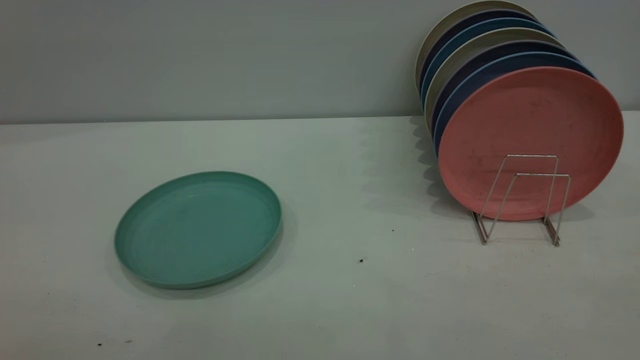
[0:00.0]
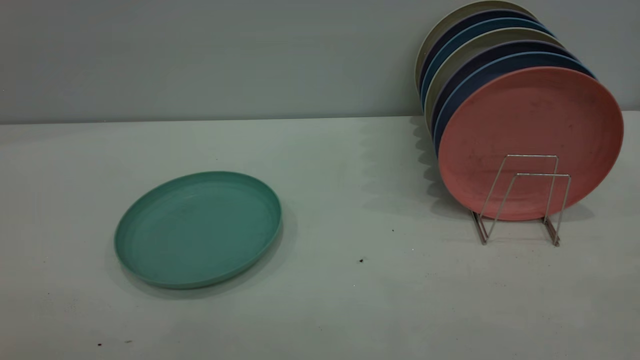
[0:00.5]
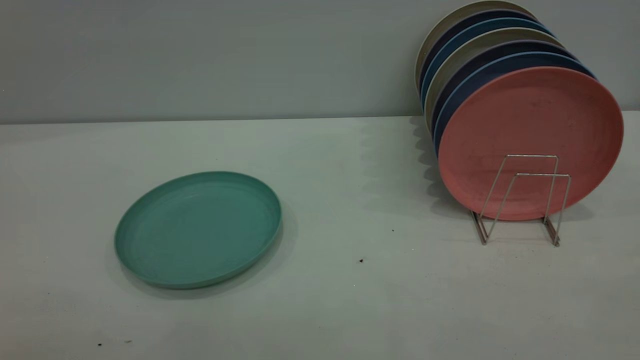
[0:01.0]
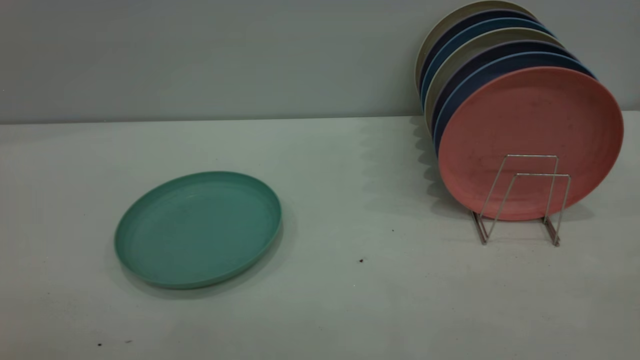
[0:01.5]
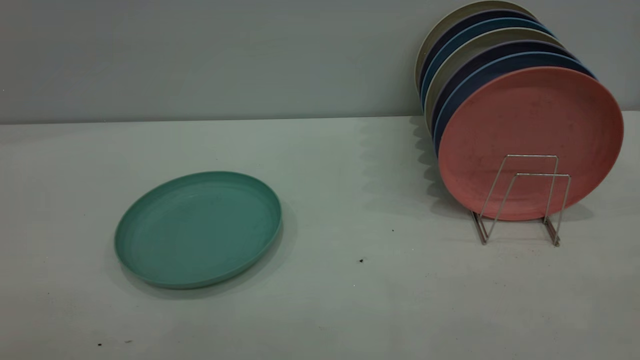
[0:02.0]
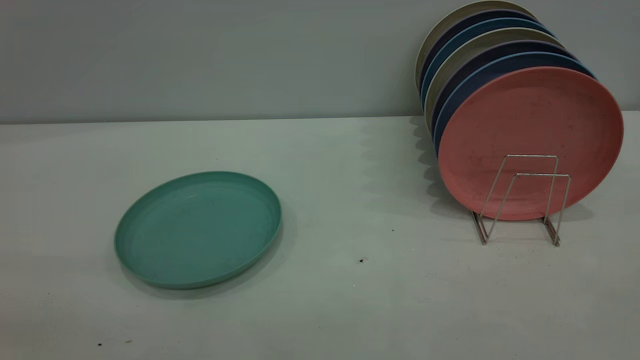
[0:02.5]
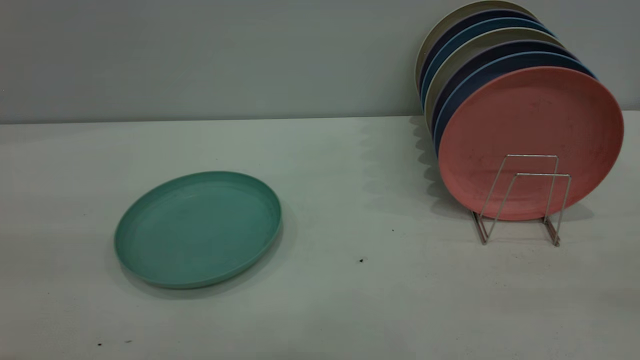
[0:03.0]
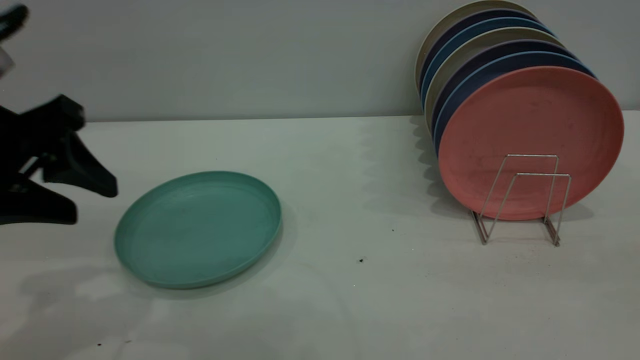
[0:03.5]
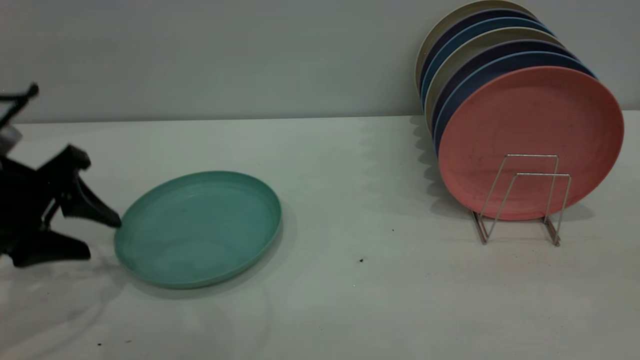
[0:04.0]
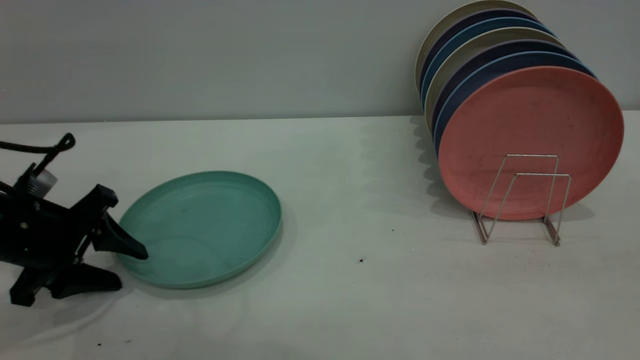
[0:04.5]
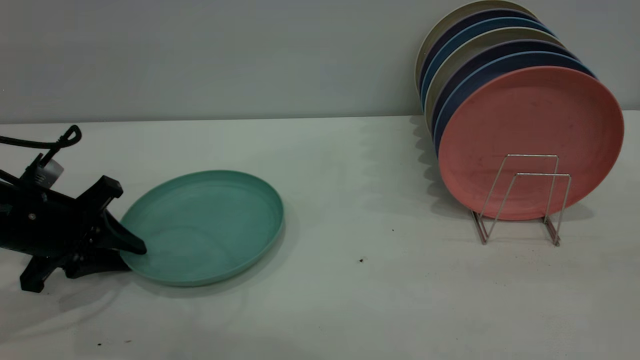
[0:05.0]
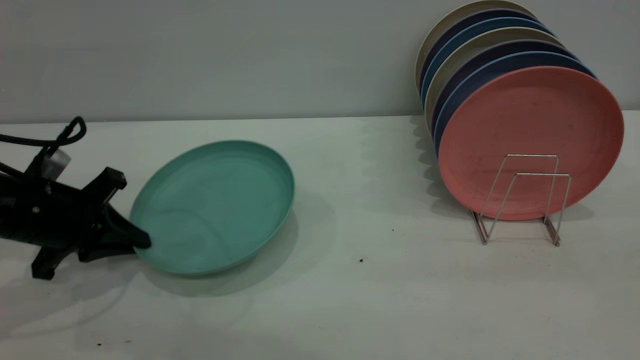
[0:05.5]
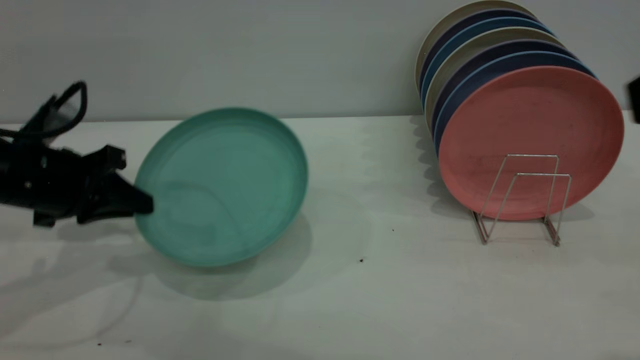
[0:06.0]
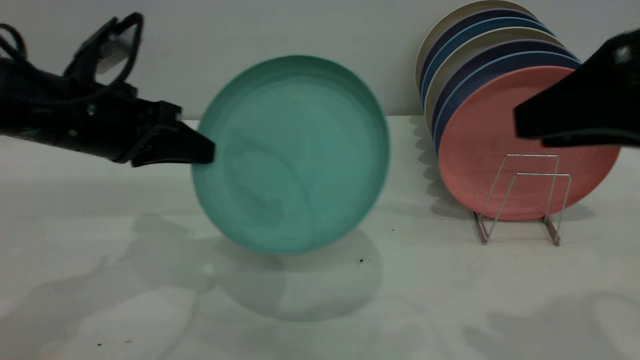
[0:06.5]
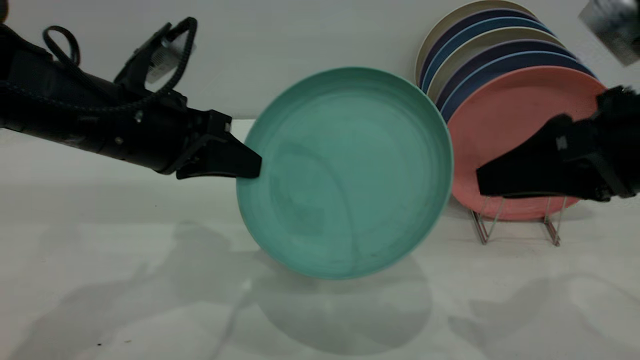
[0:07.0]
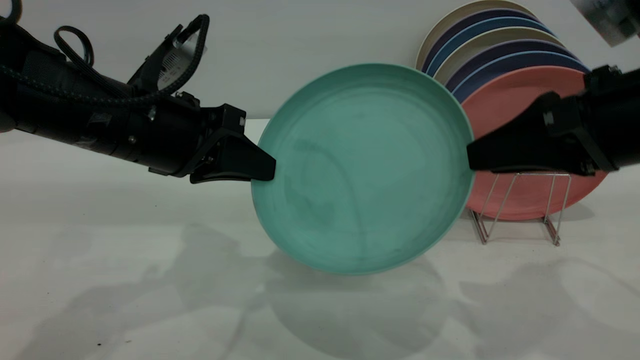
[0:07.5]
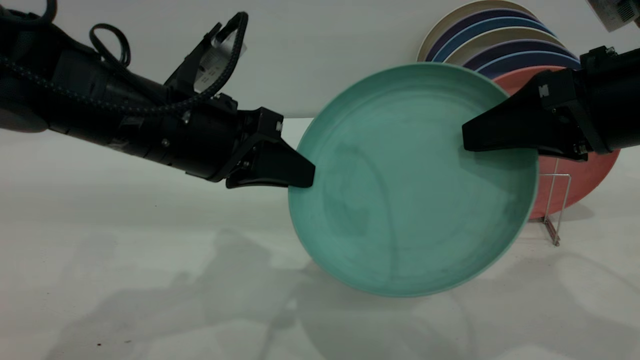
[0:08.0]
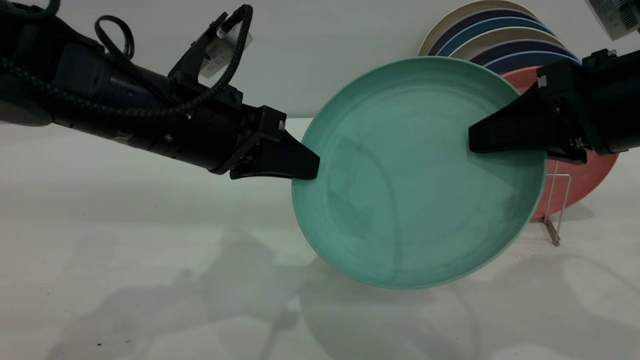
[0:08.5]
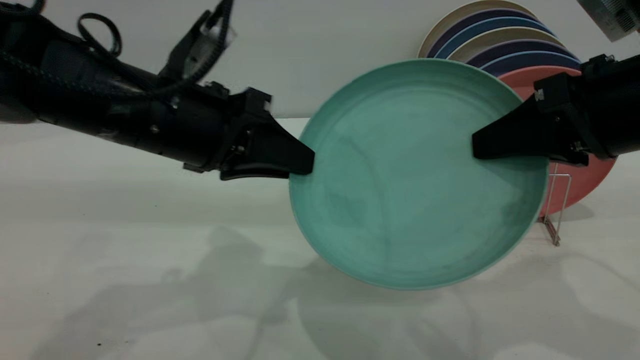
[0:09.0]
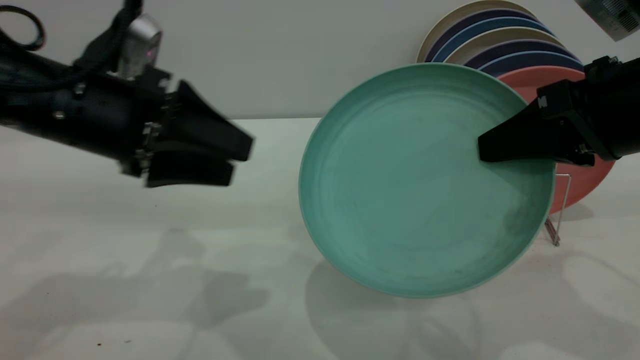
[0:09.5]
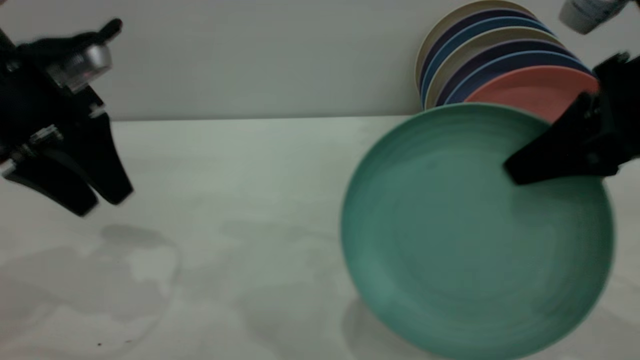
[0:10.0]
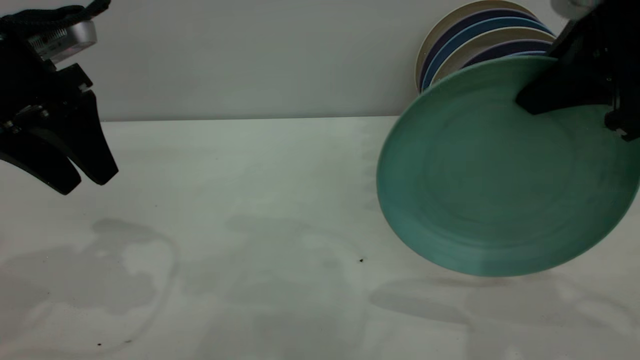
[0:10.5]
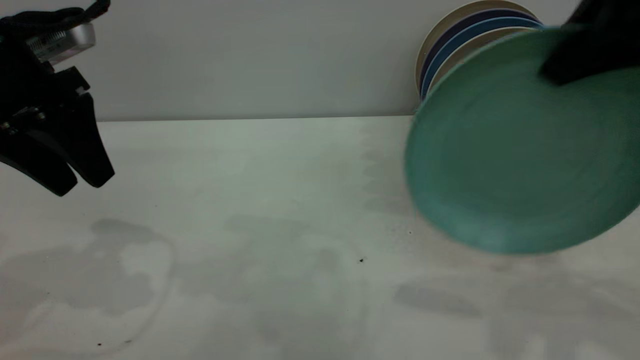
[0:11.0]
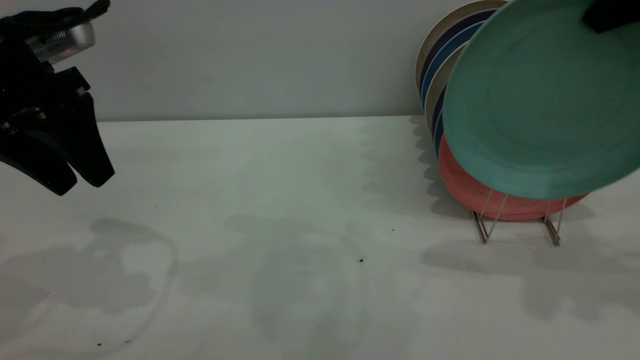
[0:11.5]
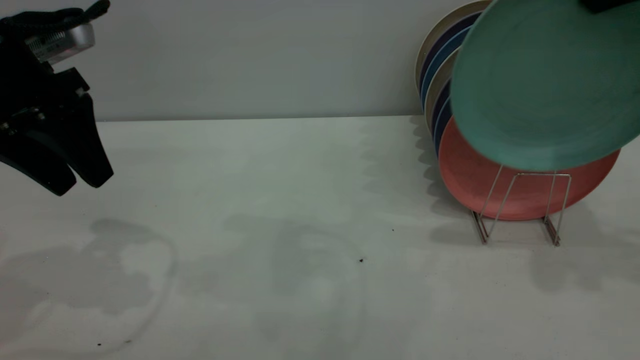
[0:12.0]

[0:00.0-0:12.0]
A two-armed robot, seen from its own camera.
Task of the whole recording: the left gripper grasp the green plate, the left gripper pass the green plate to the right gripper, and the right gripper place the green plate on the plate rack.
Step, 0:00.0 to 0:06.0: Pick up the plate with the left gripper.
Step, 0:06.5 to 0:09.5: Pass the plate from the left gripper to the right gripper.
0:00.0 to 0:02.0: Both grippers stay about where they are.
0:02.0 to 0:04.0: The left gripper shifts about 35 cm forward and downward.
0:04.0 to 0:06.0: The left gripper closes. The right gripper shifts by about 5 cm.
0:06.0 to 0:08.0: The left gripper heads to the right, covering about 15 cm; the right gripper heads forward and downward, covering some 15 cm.
0:08.0 to 0:10.0: The right gripper closes up; the left gripper moves to the left, some 15 cm, and opens.
0:10.0 to 0:12.0: The right gripper goes some 15 cm upward, forward and to the right.

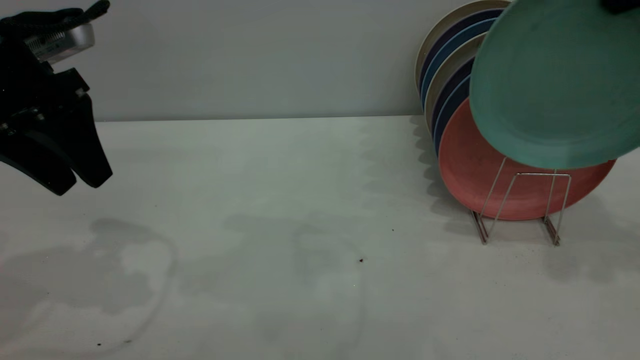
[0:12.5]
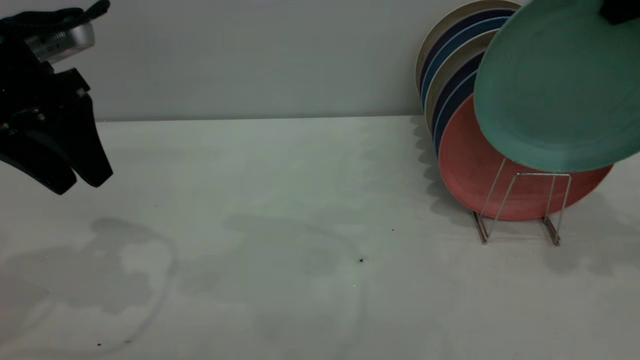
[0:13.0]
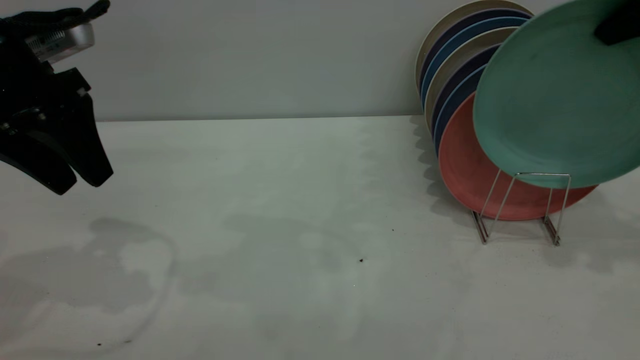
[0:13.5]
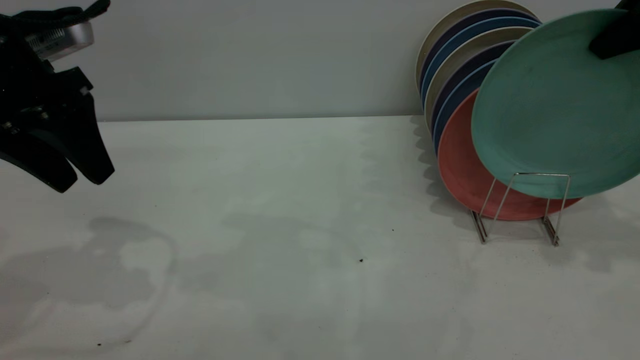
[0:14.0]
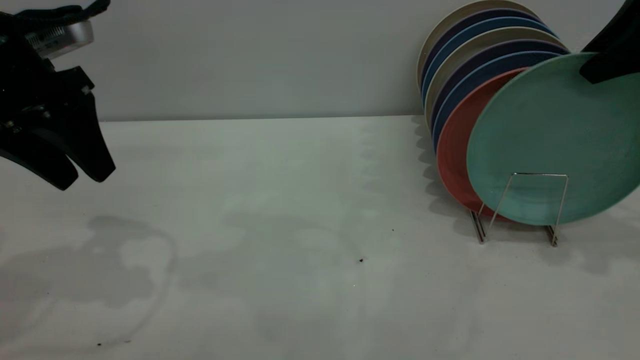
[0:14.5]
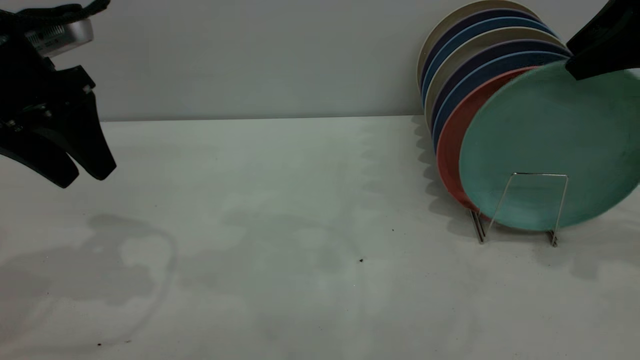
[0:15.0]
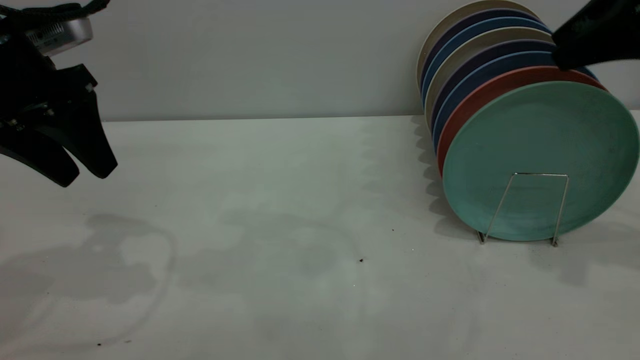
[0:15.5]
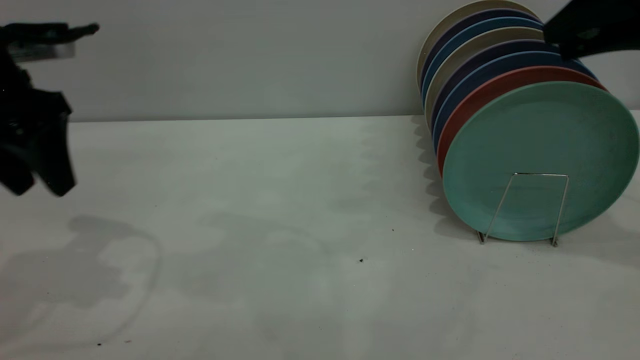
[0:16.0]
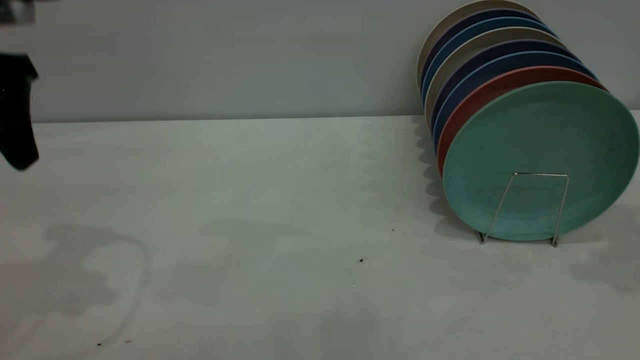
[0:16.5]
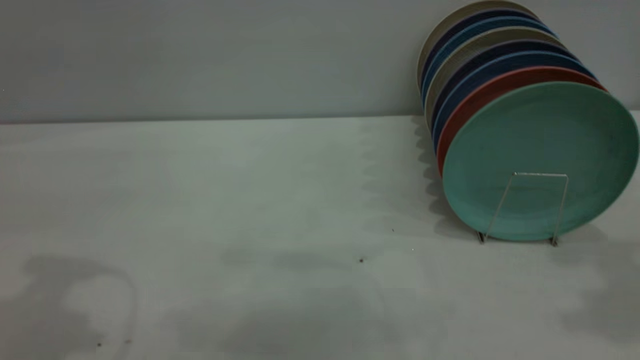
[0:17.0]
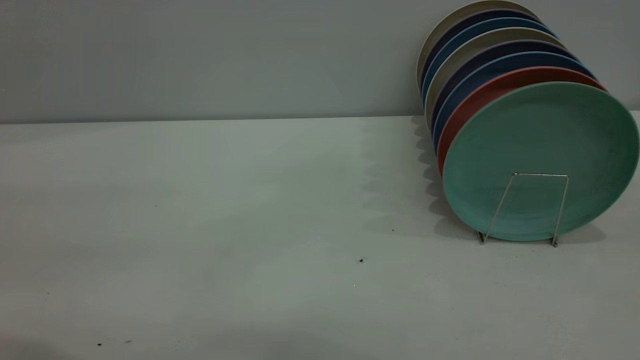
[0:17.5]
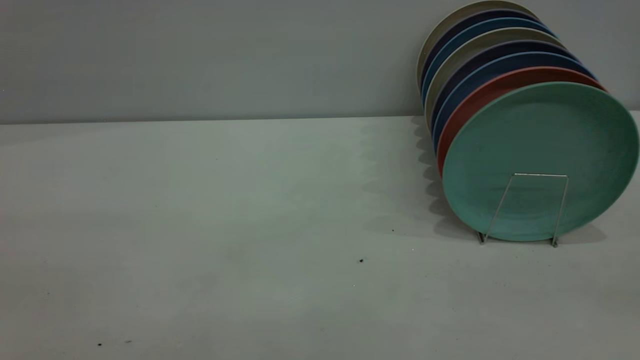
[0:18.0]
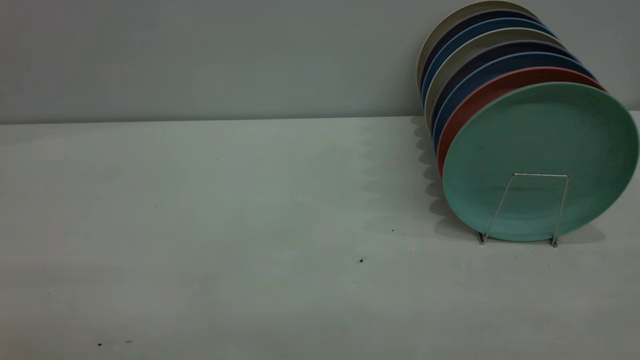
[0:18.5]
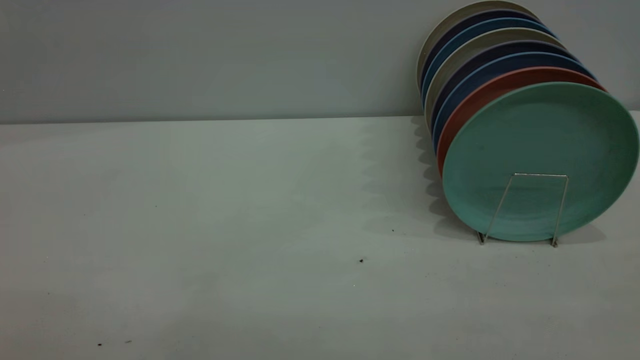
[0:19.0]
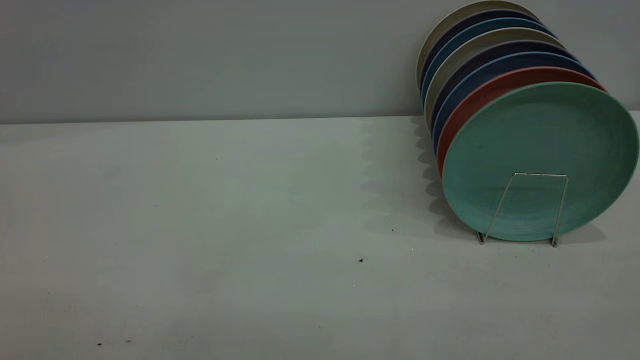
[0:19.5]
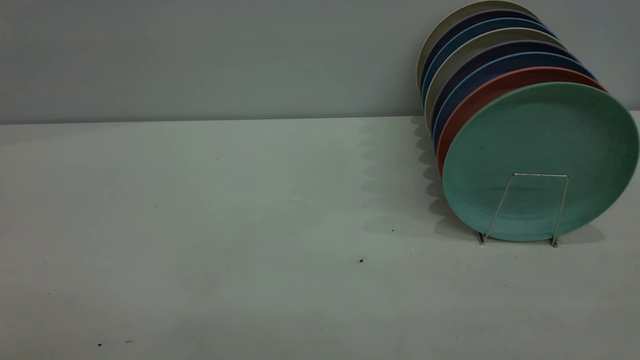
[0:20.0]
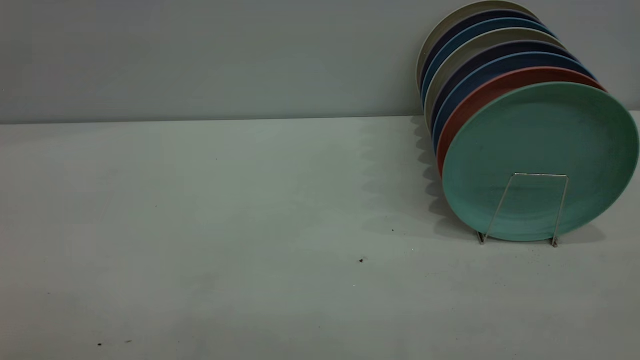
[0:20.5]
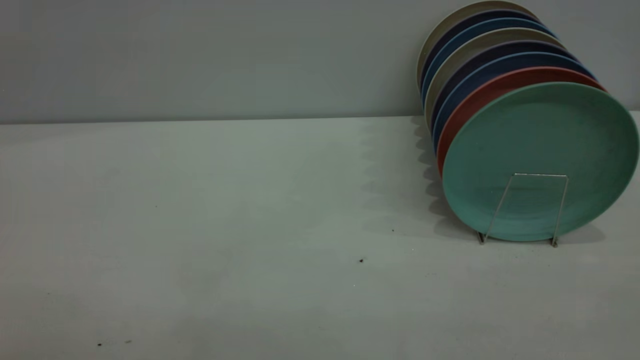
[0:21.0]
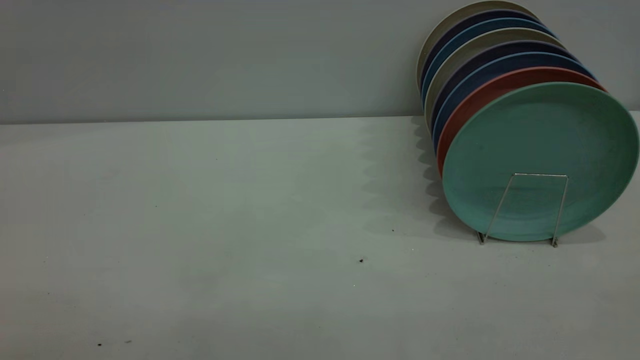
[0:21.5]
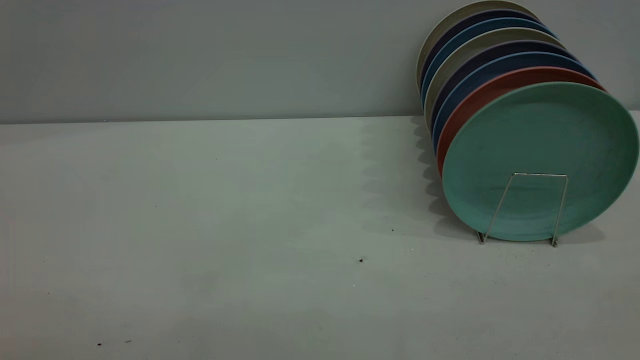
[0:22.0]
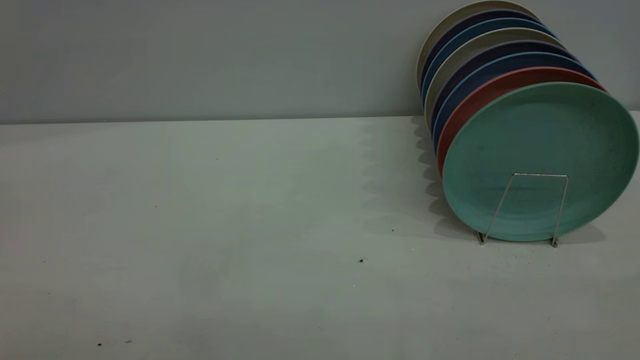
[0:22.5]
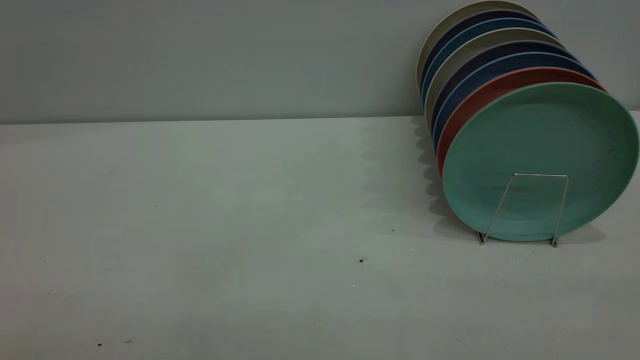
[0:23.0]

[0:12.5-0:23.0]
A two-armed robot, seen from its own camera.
Task of the whole recording: the left gripper grasp the green plate, the left gripper pass the green plate to the right gripper, and the right gripper place the green plate on the plate rack.
Step, 0:12.5 to 0:16.0: Place the plate on the shelf.
0:12.5 to 0:14.5: The right gripper moves downward, roughly 5 cm, and opens up.
0:14.5 to 0:16.5: The right gripper shifts by some 5 cm. The left gripper changes place by about 5 cm.
0:16.5 to 0:19.0: The left gripper goes some 35 cm backward.
